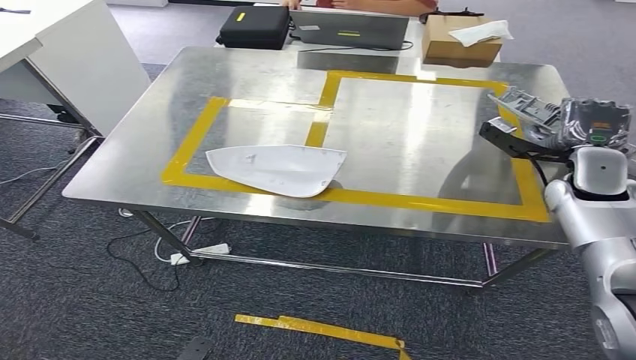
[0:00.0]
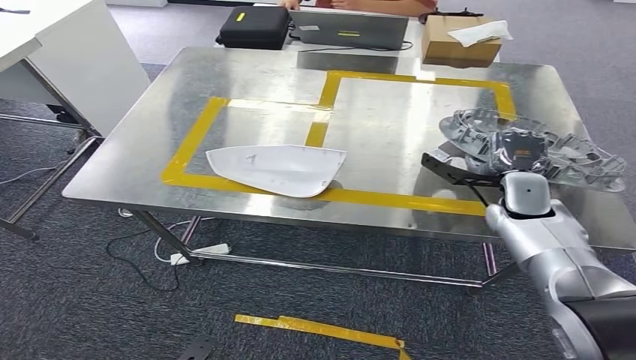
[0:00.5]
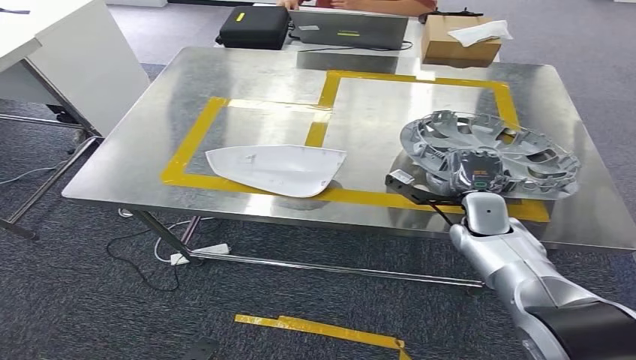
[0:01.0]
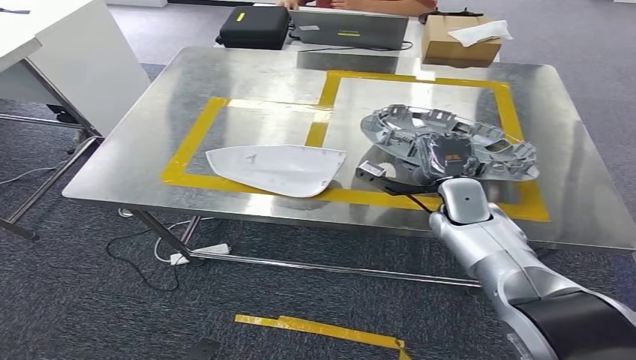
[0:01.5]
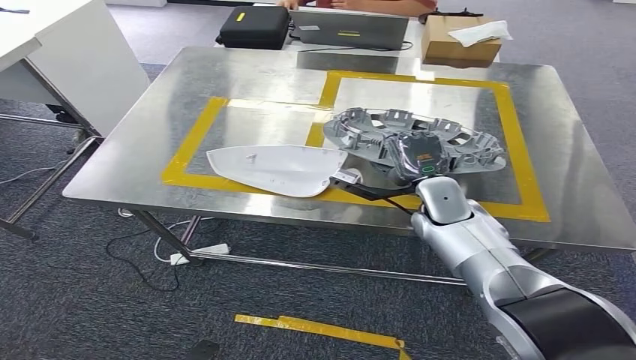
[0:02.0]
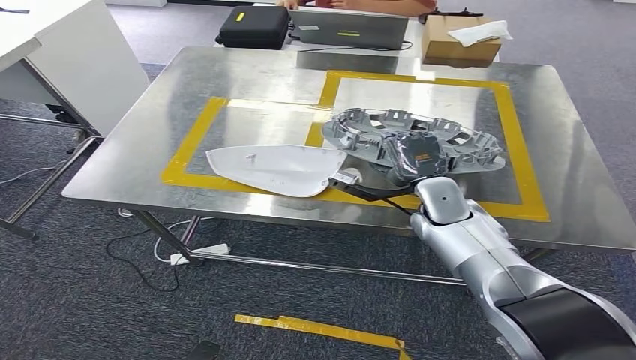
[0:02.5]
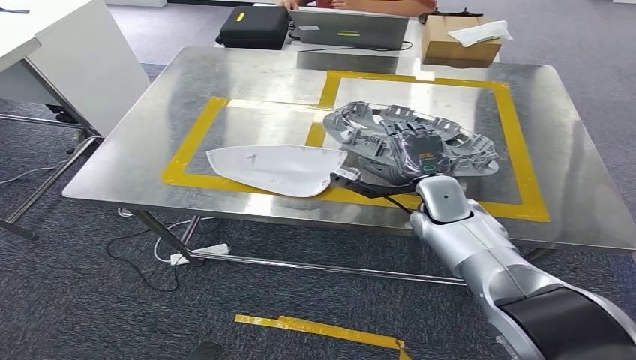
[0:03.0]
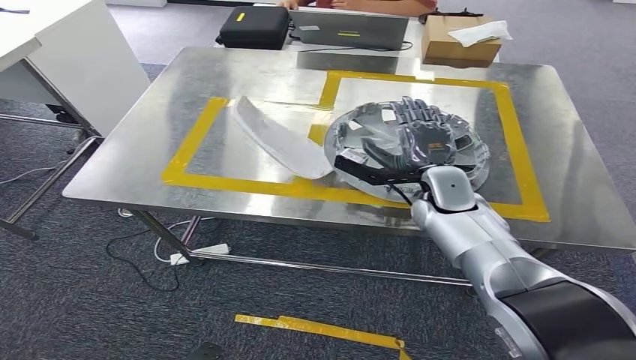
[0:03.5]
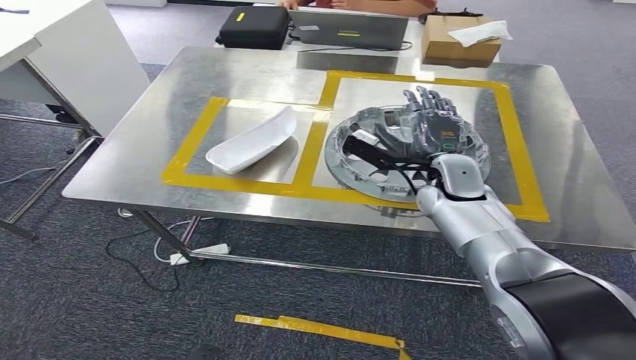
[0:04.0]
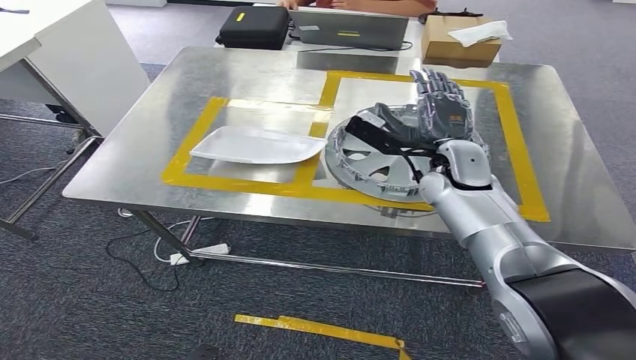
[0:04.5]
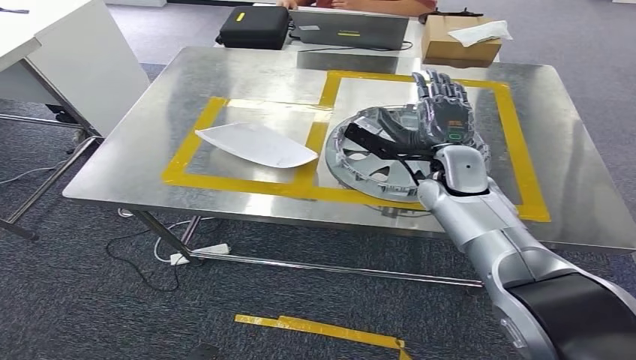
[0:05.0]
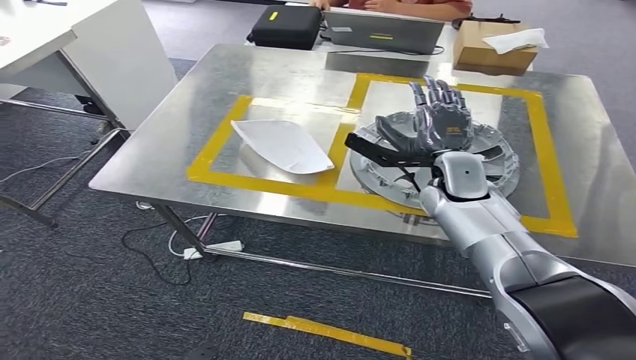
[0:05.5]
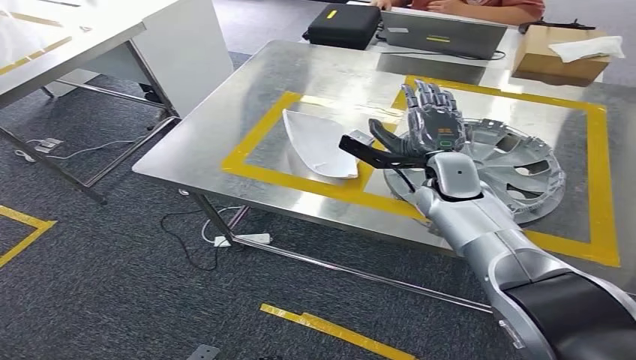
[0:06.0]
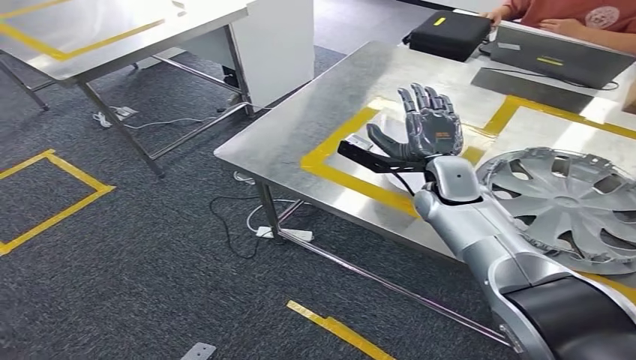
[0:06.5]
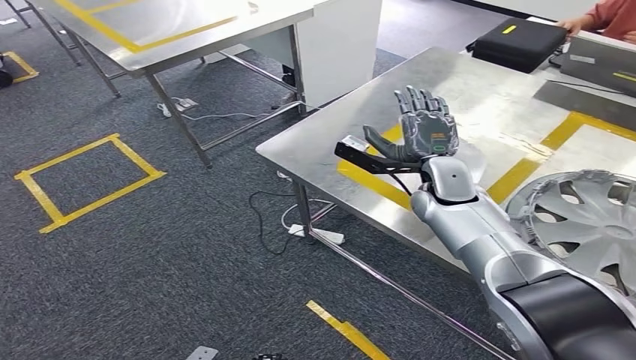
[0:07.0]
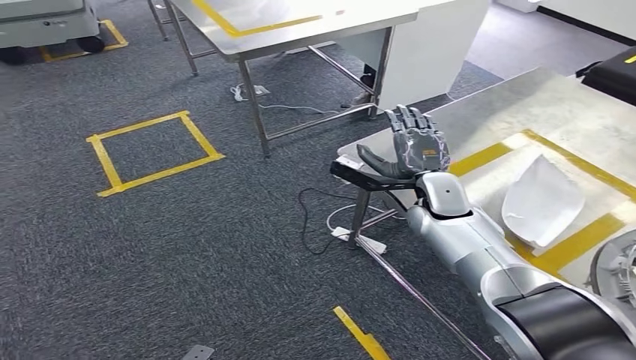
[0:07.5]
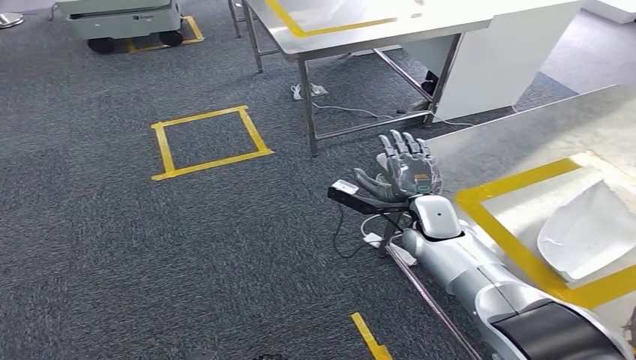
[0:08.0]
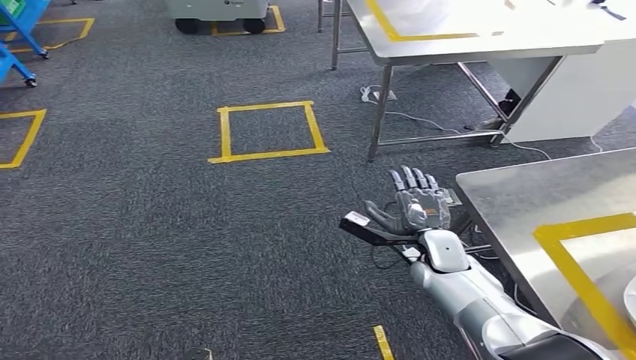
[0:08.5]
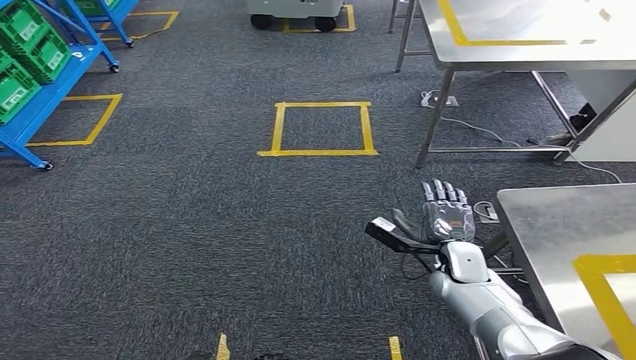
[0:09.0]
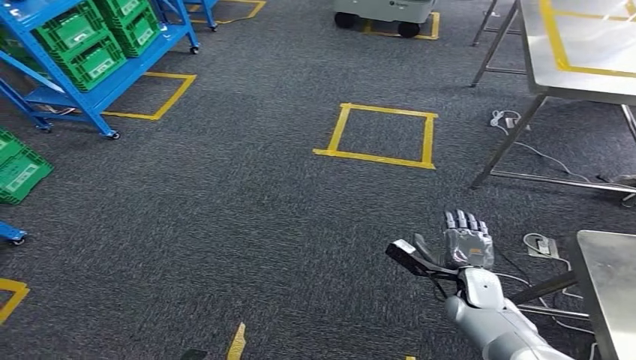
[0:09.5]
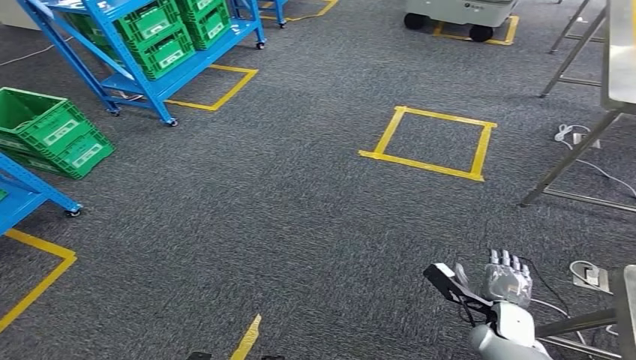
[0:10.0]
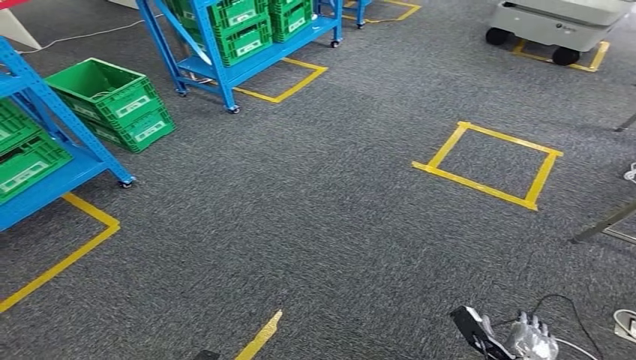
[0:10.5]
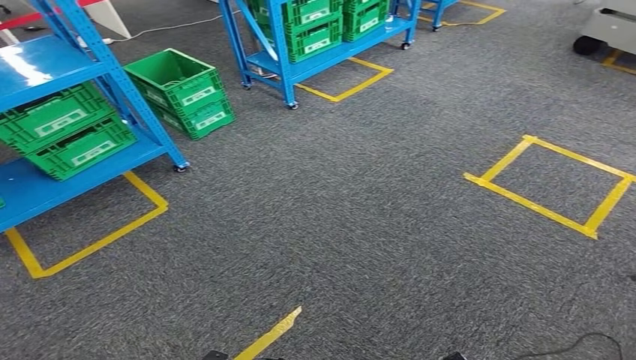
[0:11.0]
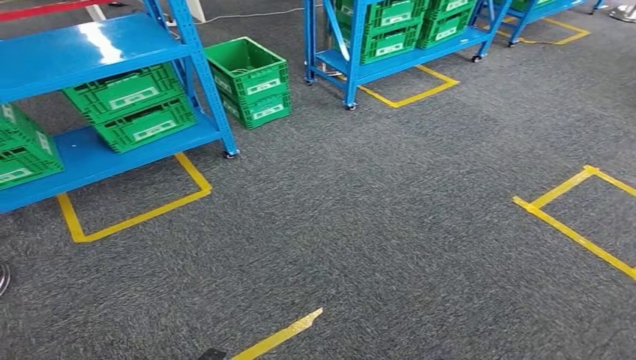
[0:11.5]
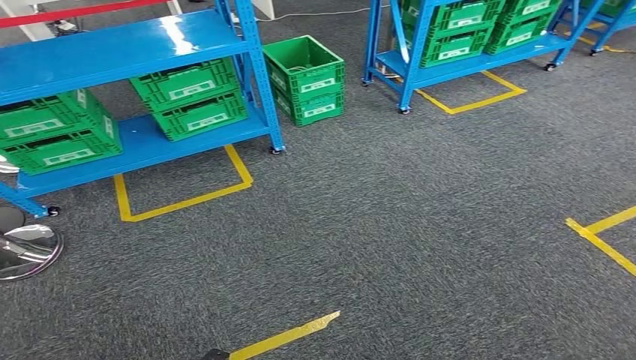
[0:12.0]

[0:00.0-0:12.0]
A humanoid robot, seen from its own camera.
Step, 0:00.0 to 0:06.0: Insert the small component into the corresponding slot on the workbench.
0:00.0 to 0:02.0: The right hand is displaced to the left by roughly 20 cm.
0:02.0 to 0:04.0: The hands move only a little.

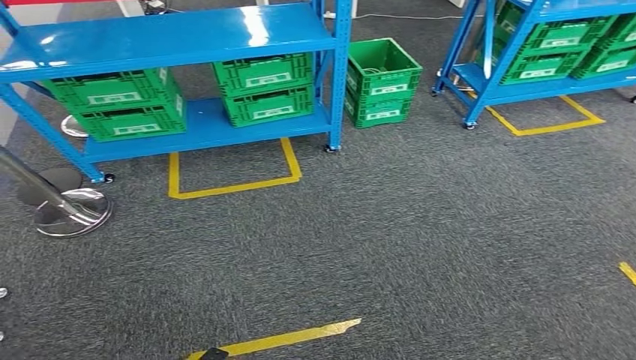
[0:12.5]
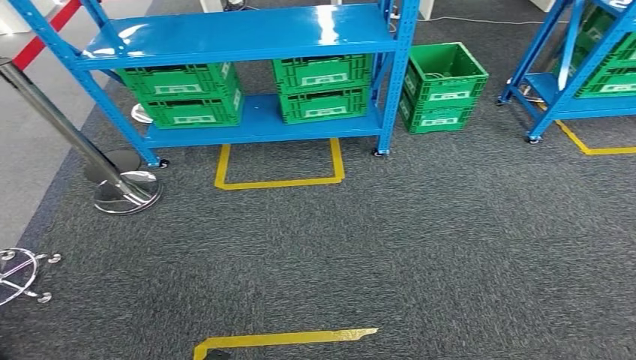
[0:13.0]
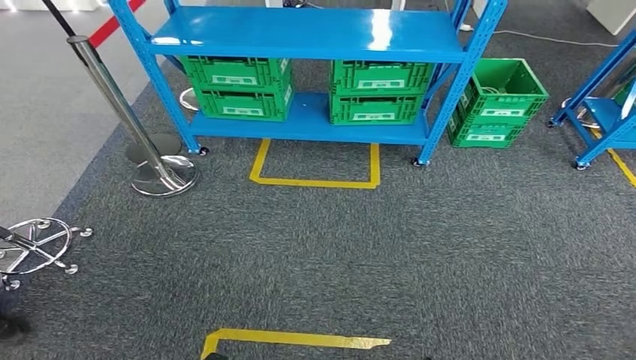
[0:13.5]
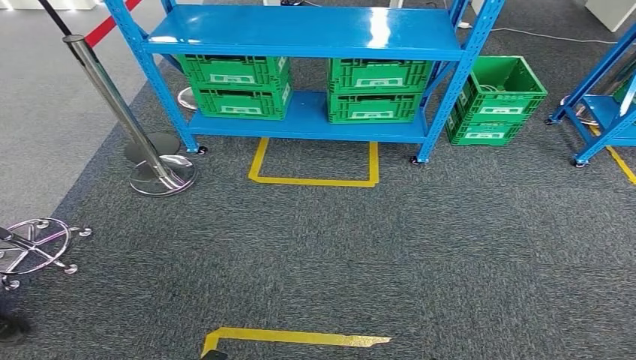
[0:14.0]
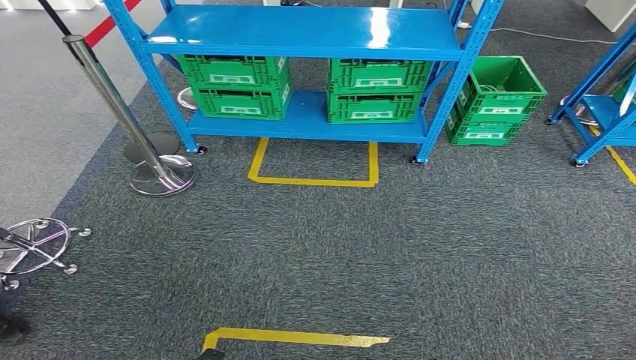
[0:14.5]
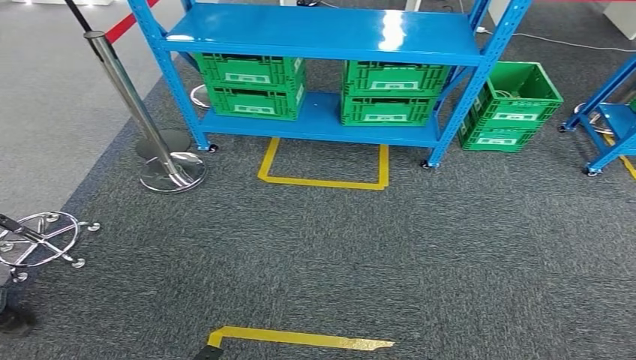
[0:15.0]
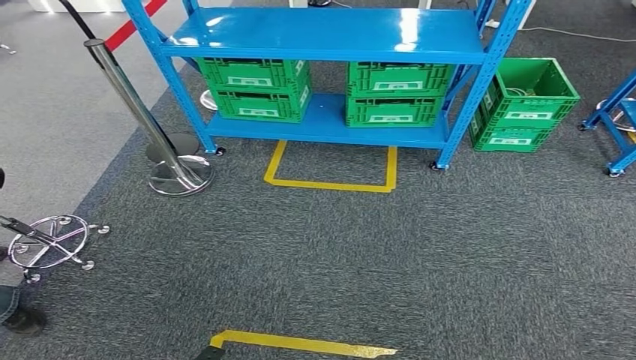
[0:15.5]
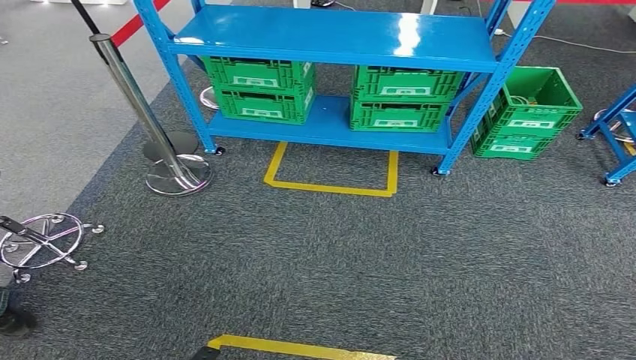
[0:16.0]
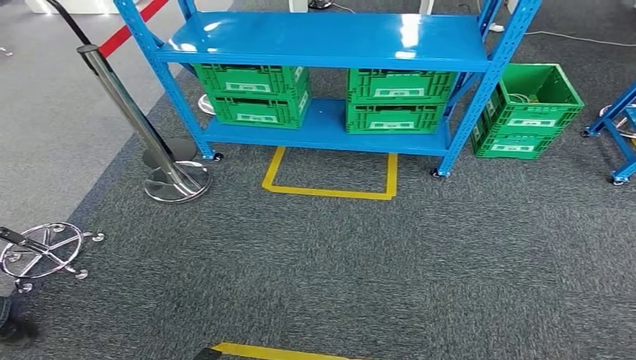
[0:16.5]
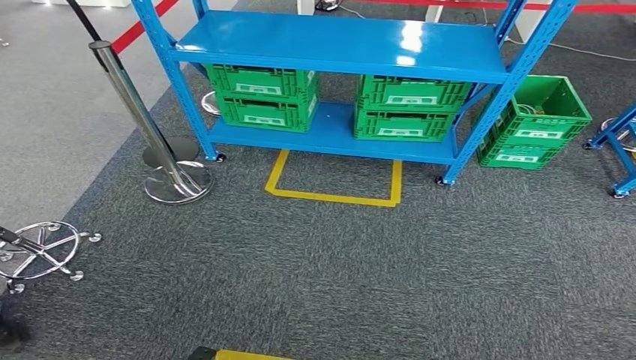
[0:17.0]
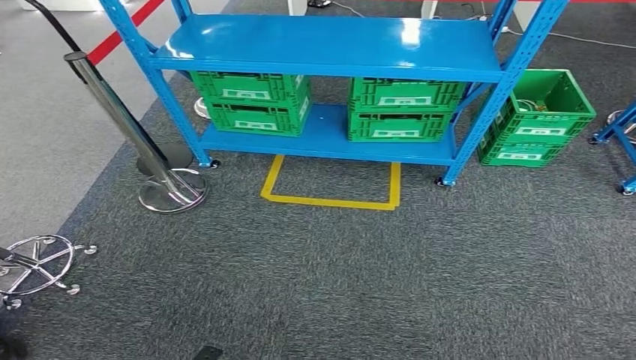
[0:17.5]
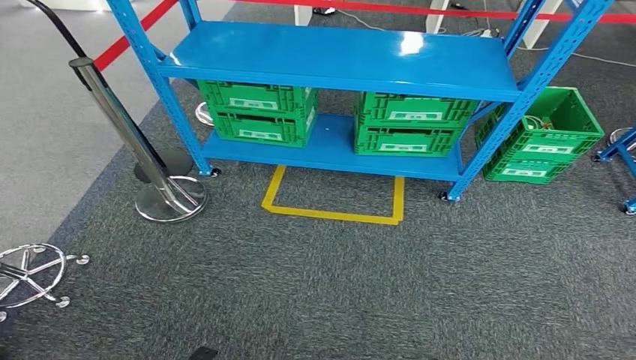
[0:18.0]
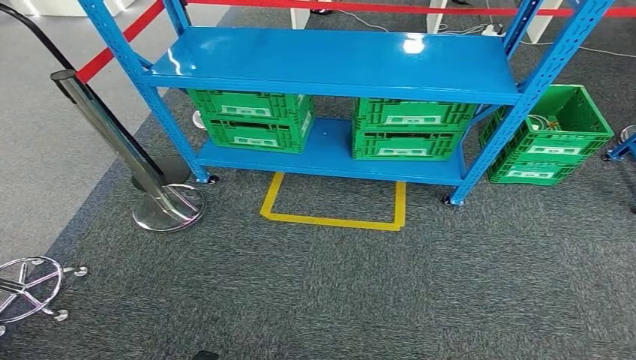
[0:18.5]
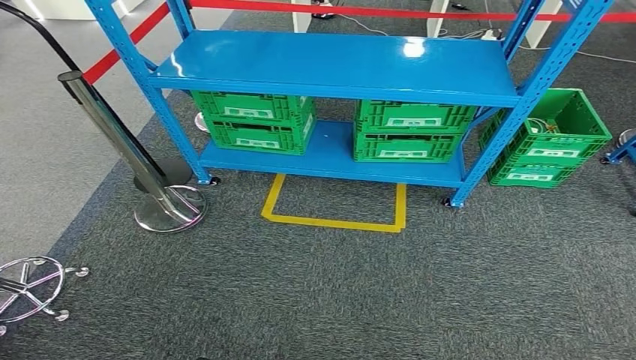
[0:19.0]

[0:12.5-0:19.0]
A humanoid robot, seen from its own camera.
Step, 0:12.5 to 0:19.0: Return to the initial position at the workbench.
